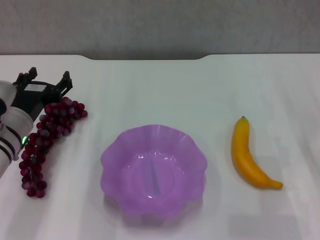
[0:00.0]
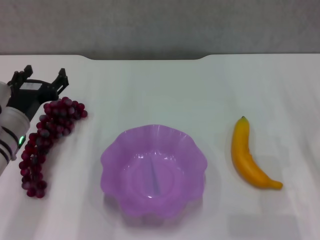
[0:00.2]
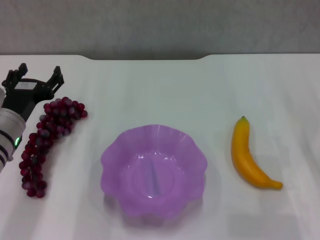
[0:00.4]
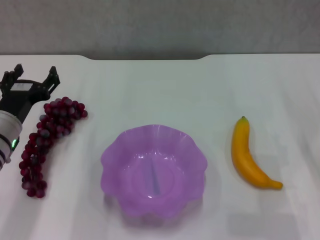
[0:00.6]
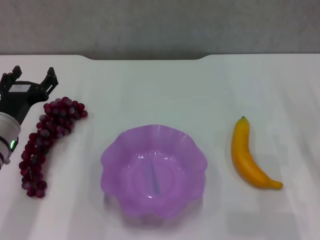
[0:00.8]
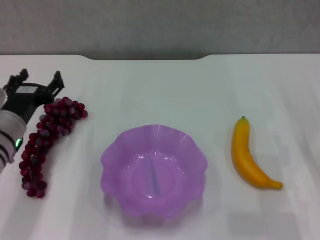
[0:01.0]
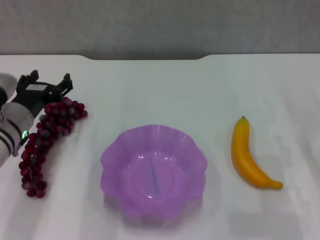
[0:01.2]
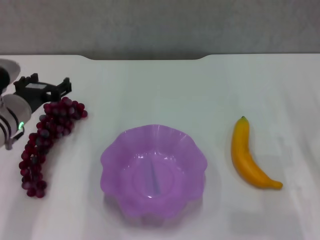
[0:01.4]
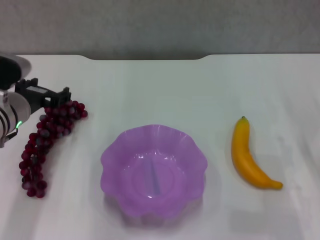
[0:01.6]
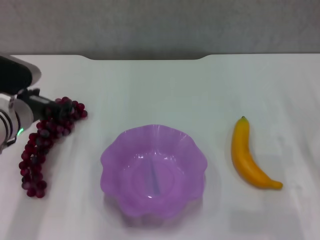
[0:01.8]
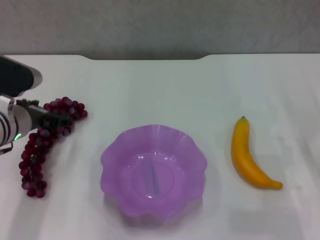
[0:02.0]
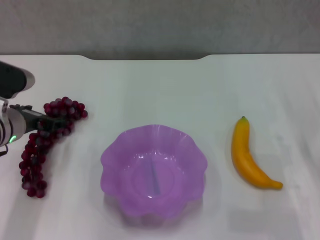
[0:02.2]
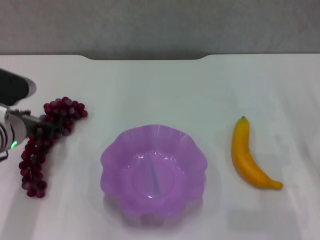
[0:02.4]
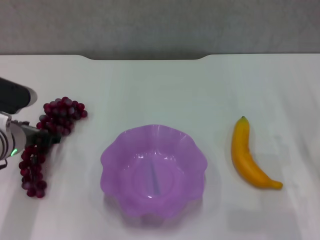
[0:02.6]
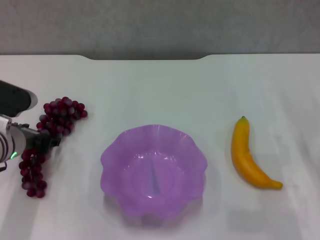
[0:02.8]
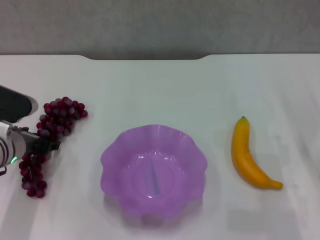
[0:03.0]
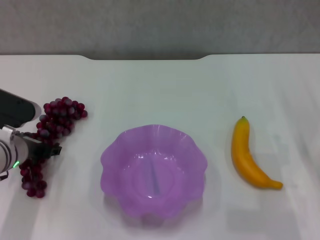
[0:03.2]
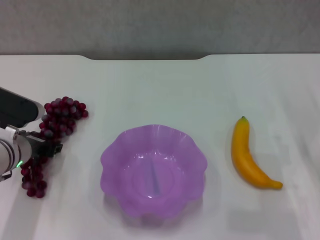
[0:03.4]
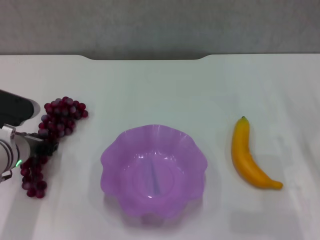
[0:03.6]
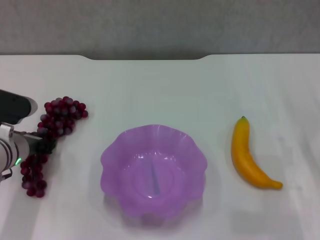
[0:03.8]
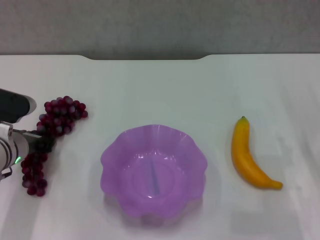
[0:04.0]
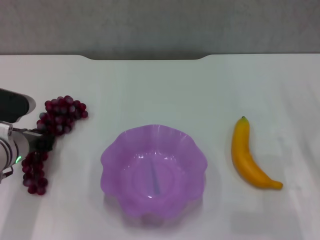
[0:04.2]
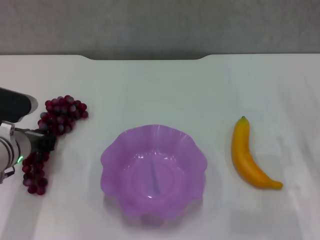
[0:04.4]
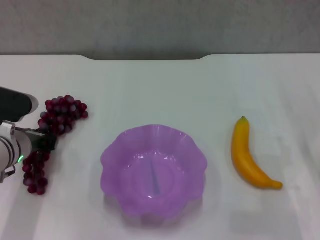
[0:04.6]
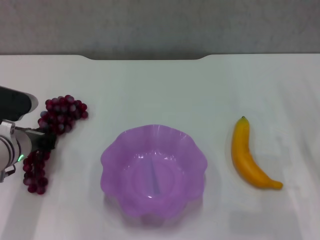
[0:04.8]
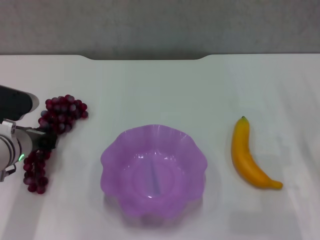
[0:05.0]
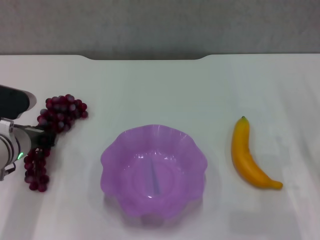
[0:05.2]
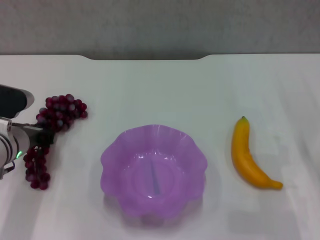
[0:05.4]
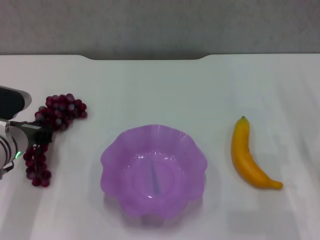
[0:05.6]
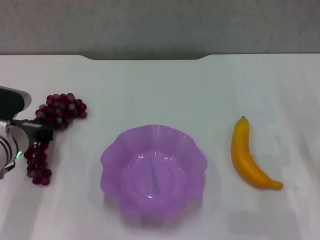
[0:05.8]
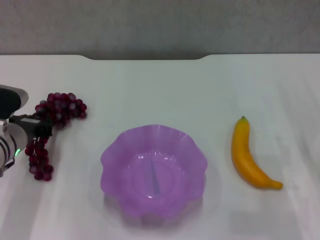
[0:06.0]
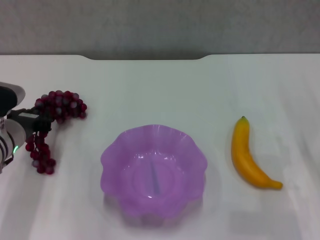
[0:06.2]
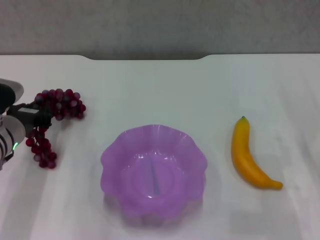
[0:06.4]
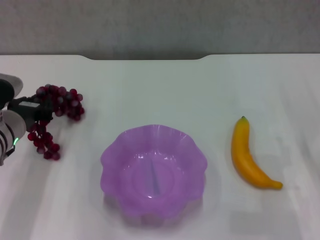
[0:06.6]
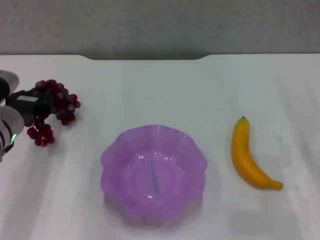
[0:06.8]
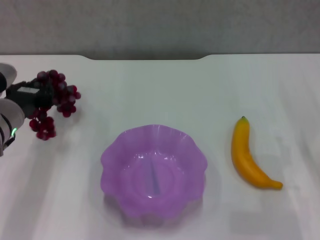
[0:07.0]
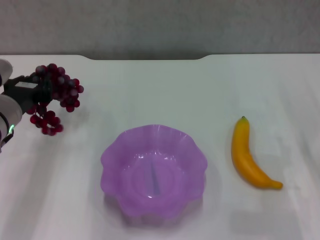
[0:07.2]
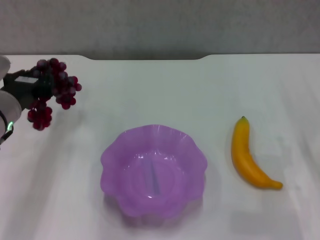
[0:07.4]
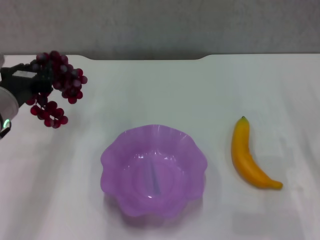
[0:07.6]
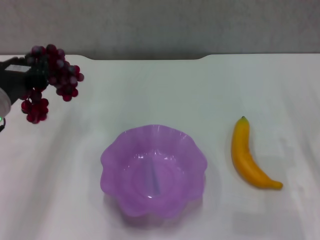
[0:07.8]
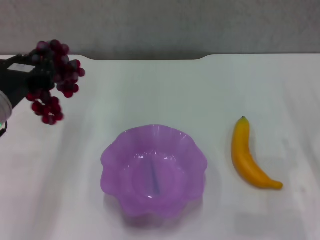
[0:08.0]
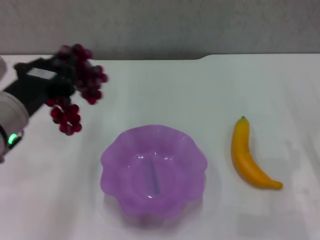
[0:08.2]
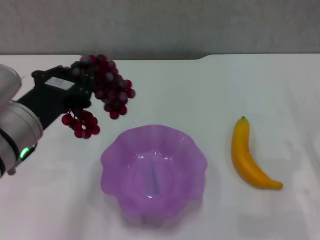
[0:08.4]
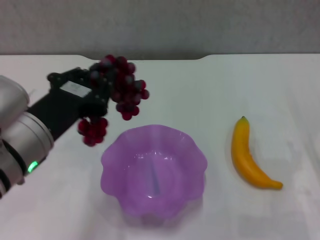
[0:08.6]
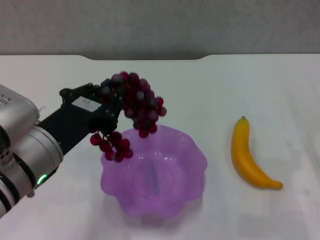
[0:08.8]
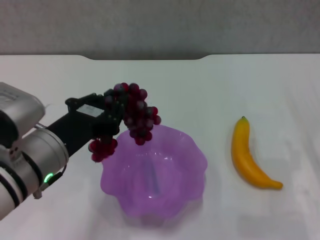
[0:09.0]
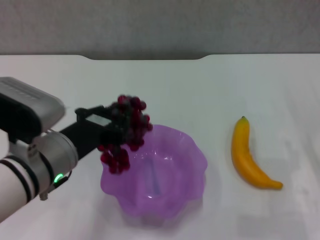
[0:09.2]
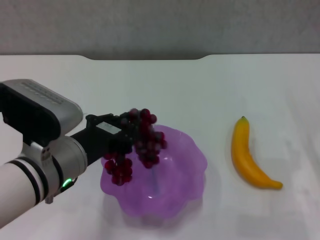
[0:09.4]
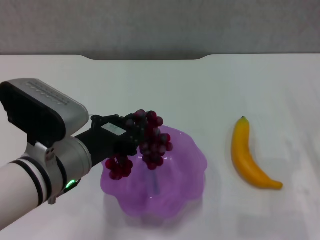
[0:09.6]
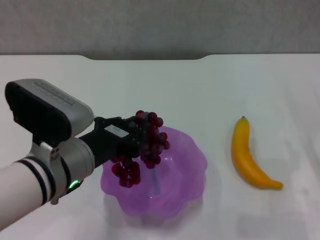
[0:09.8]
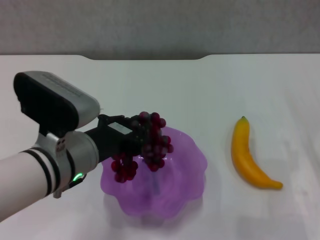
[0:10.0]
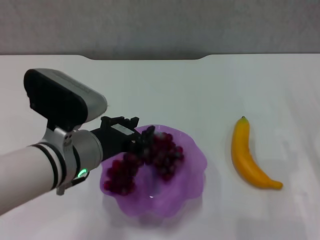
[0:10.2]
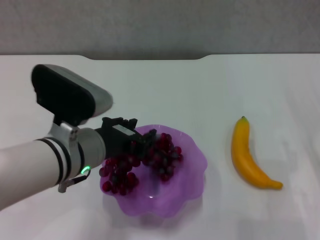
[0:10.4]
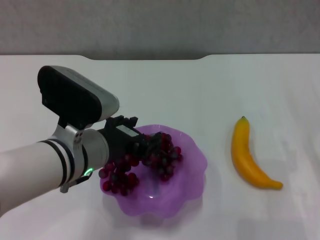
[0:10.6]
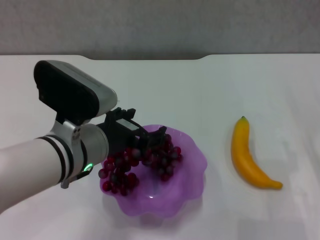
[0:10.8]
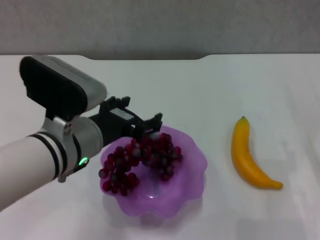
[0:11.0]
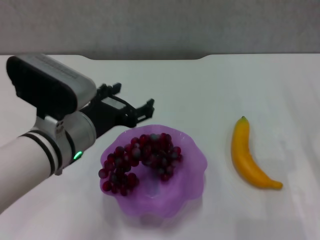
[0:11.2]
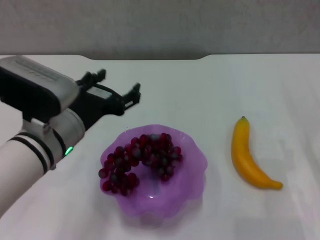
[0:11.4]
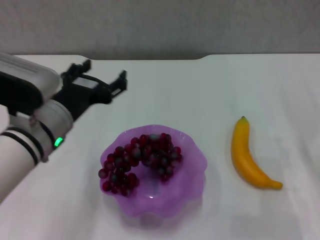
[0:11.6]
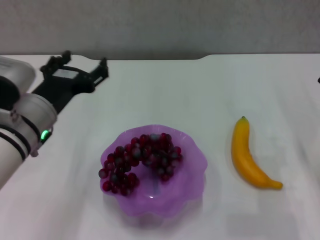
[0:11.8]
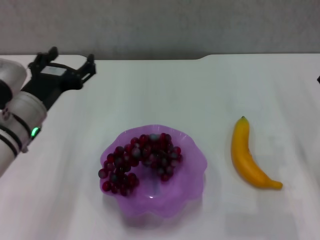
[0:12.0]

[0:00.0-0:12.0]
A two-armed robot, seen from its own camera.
Step, 0:00.0 to 0:04.2: Grasp the grape with left gripper.
Step, 0:04.6 to 0:10.2: Place the grape in the purple plate with left gripper.
0:01.6 to 0:03.0: The left gripper moves roughly 5 cm.
0:03.0 to 0:04.4: The left gripper closes its fingers.
0:04.4 to 0:06.0: There are only small adjustments of the grippers.
0:06.0 to 0:07.6: The left gripper goes roughly 10 cm upward.
0:07.6 to 0:09.0: The left gripper heads backward and to the right, covering some 10 cm.
0:09.0 to 0:10.4: The left gripper changes place by approximately 5 cm.
0:10.4 to 0:12.0: The left gripper goes roughly 5 cm to the left, and opens its fingers.

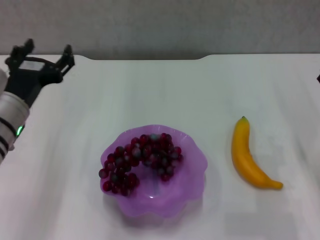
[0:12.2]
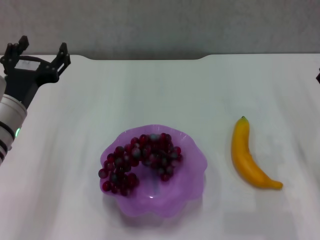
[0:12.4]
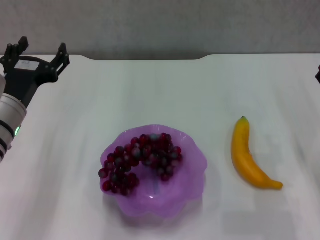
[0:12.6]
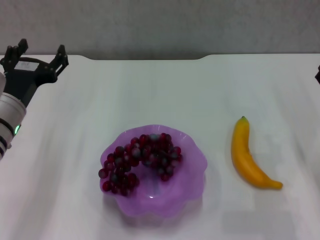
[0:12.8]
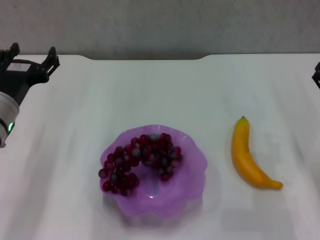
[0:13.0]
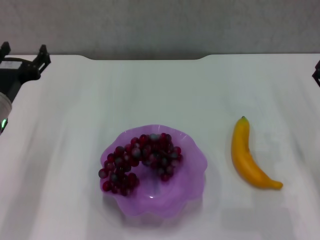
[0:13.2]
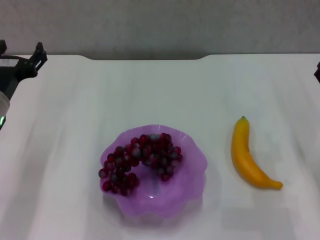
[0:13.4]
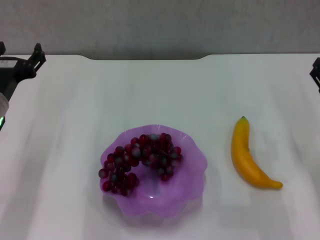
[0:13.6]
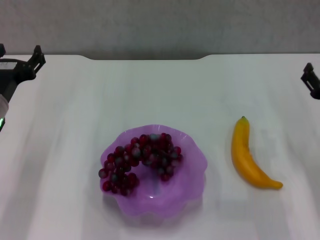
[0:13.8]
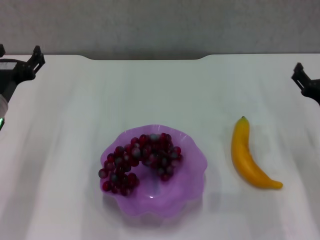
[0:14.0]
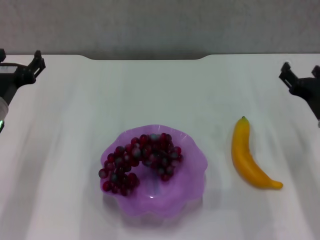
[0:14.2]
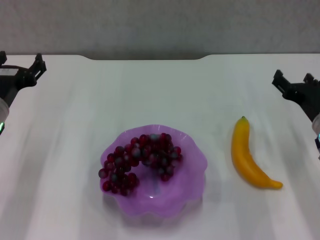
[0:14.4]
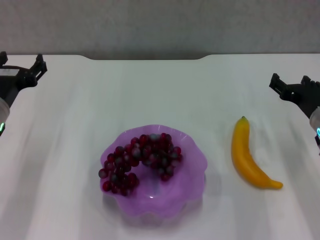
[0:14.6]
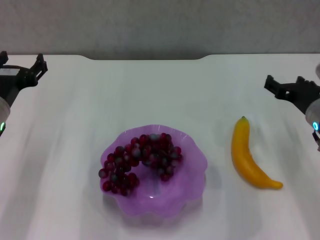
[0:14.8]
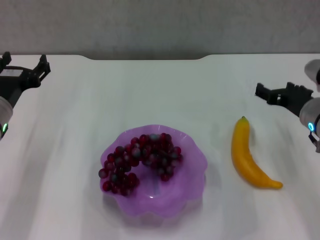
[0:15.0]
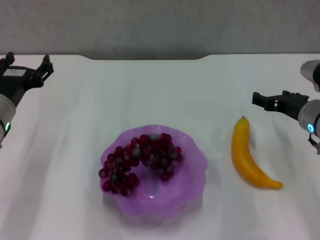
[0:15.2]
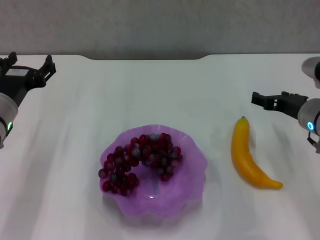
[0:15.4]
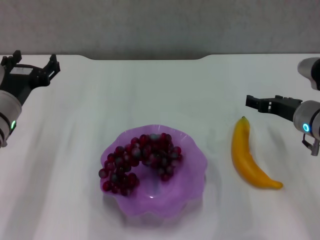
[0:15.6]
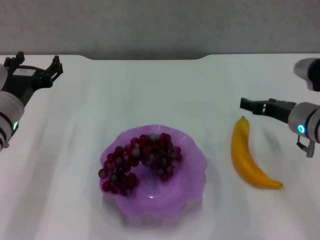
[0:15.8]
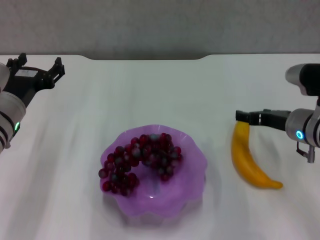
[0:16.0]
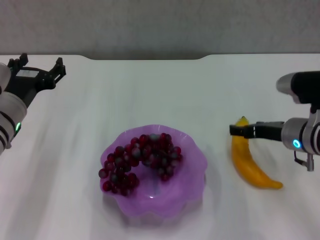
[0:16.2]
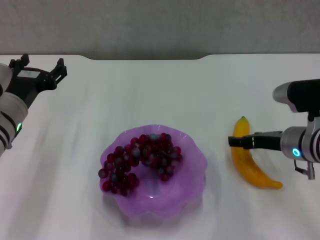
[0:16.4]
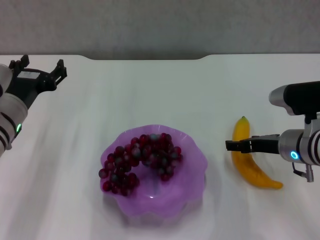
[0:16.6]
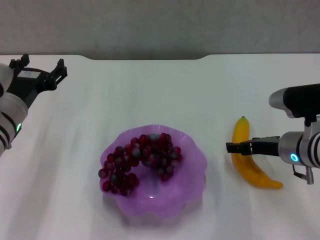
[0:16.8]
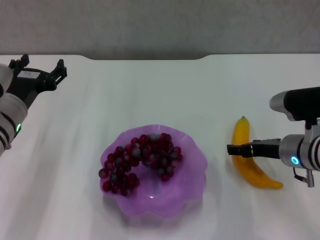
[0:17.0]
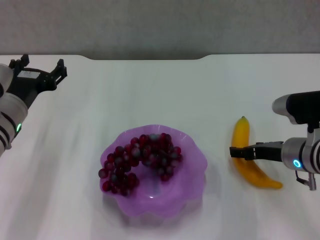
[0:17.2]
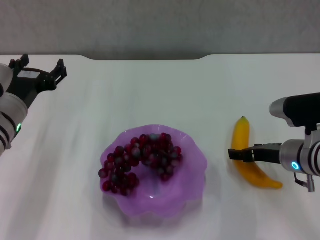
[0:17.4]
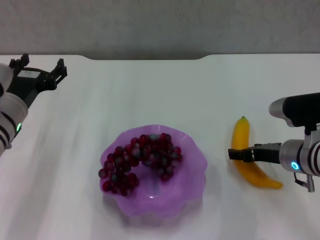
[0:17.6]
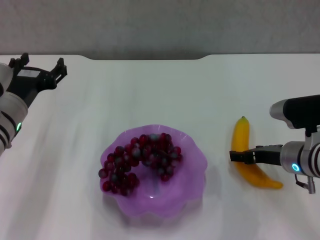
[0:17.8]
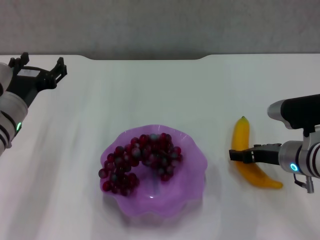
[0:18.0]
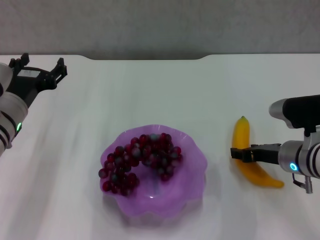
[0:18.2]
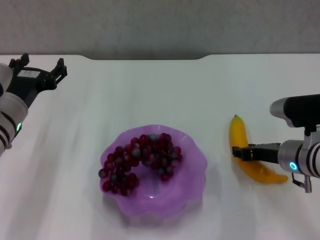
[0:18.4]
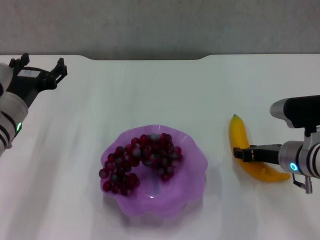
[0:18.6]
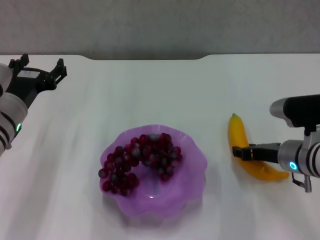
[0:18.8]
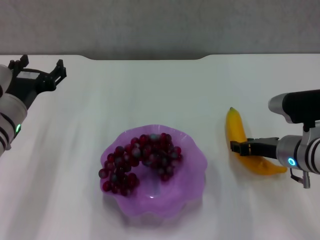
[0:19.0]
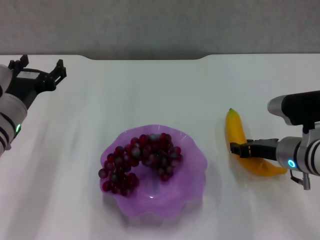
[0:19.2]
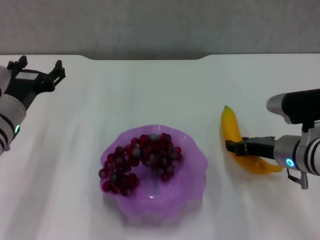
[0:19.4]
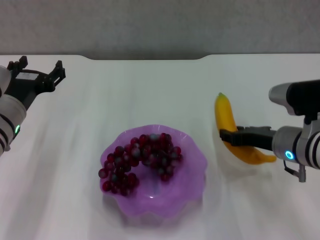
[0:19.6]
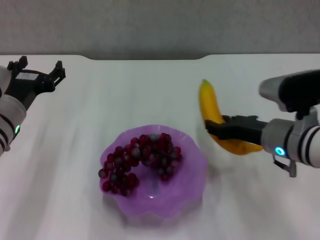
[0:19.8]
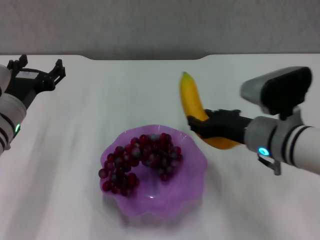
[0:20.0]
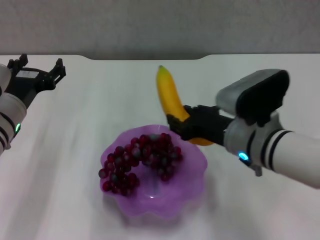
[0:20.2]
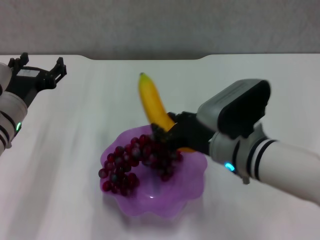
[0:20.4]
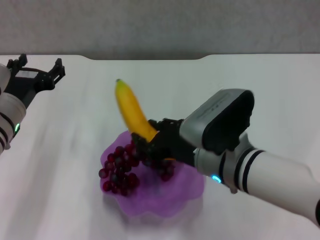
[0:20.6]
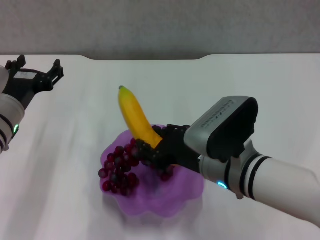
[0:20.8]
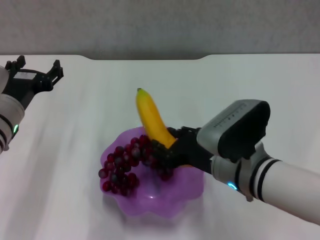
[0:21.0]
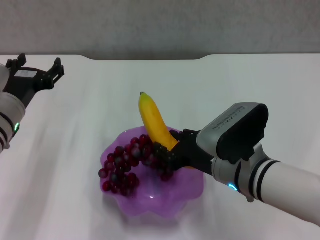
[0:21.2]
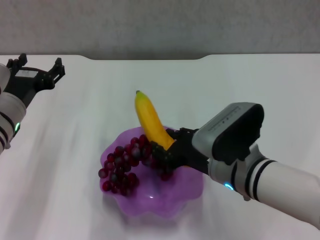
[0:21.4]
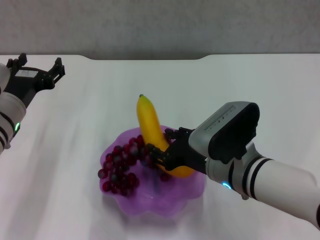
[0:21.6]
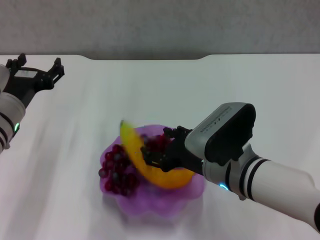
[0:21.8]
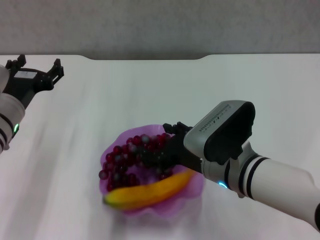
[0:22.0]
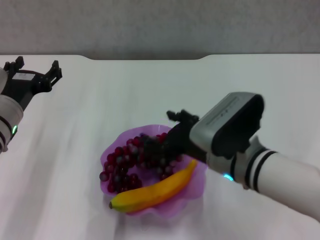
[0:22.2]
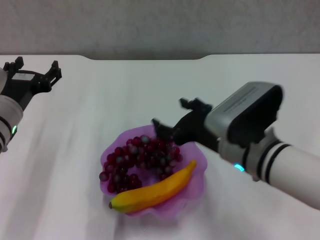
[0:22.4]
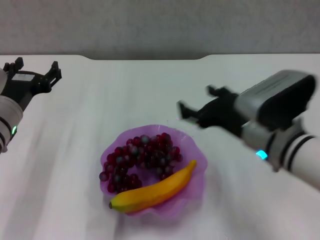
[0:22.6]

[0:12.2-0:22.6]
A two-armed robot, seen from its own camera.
Step, 0:12.2 to 0:18.4: Grasp the banana with right gripper.
Step, 0:18.6 to 0:21.6: Place the banana in the purple plate with right gripper.
0:12.2 to 0:13.6: There are only small adjustments of the grippers.
0:13.6 to 0:15.2: The right gripper moves forward, about 5 cm.
0:16.6 to 0:18.2: The grippers stay close to where they were, moving slightly.
0:18.2 to 0:19.6: The right gripper closes its fingers.
0:19.6 to 0:21.2: The right gripper is displaced to the left and backward by roughly 10 cm.
0:21.2 to 0:22.6: The right gripper moves approximately 5 cm, and opens.
